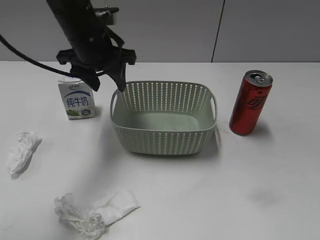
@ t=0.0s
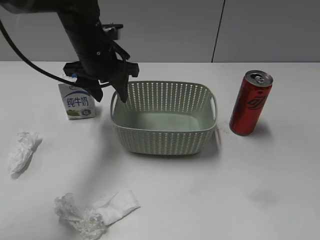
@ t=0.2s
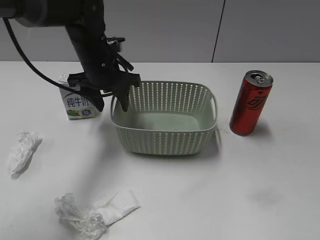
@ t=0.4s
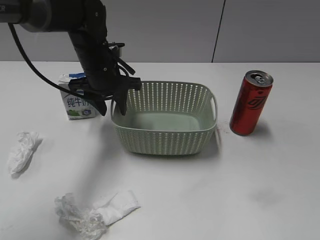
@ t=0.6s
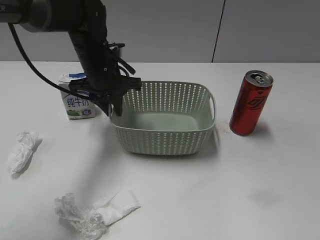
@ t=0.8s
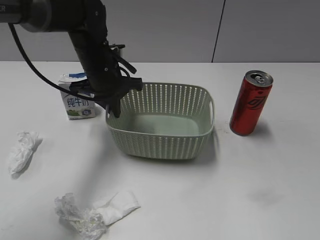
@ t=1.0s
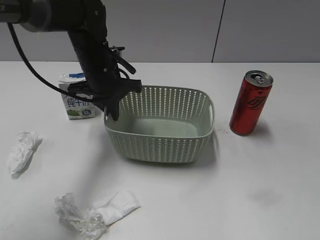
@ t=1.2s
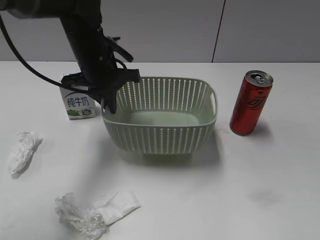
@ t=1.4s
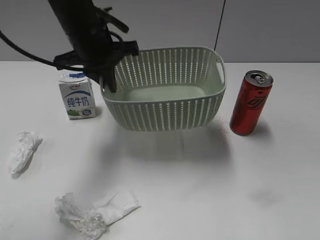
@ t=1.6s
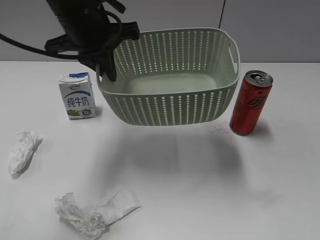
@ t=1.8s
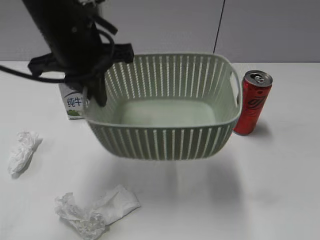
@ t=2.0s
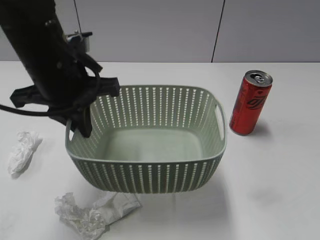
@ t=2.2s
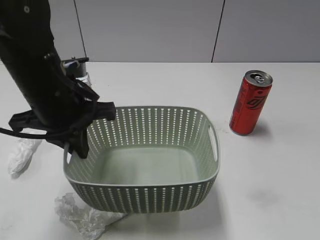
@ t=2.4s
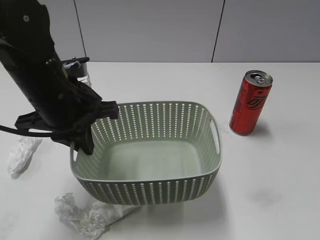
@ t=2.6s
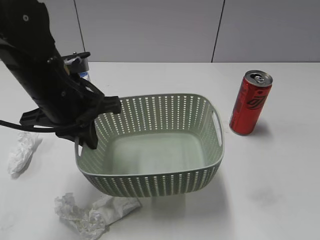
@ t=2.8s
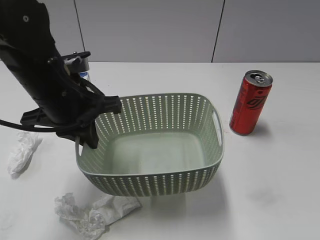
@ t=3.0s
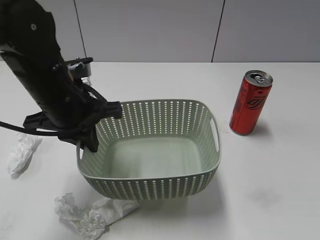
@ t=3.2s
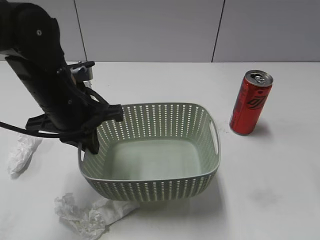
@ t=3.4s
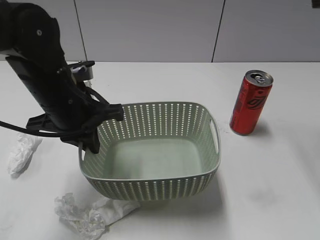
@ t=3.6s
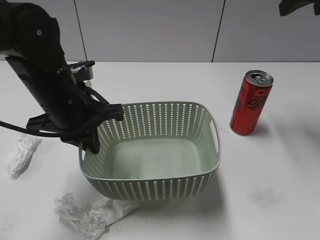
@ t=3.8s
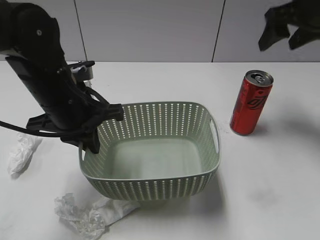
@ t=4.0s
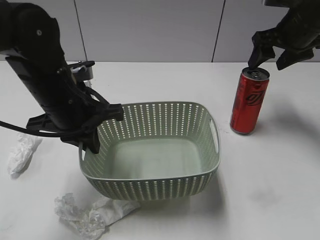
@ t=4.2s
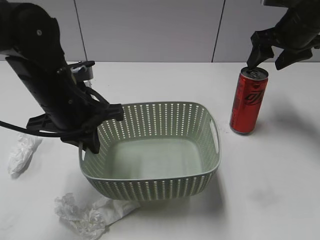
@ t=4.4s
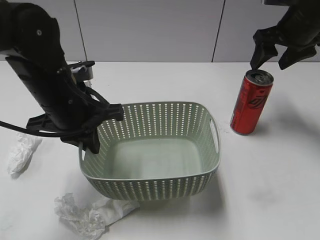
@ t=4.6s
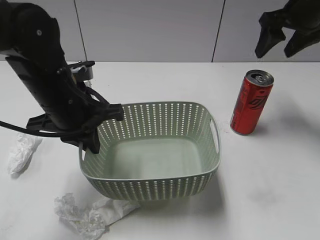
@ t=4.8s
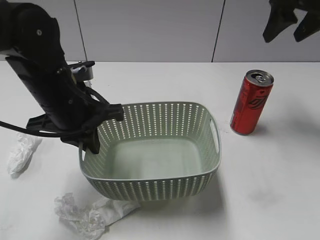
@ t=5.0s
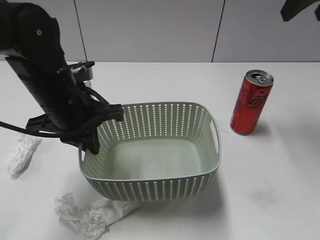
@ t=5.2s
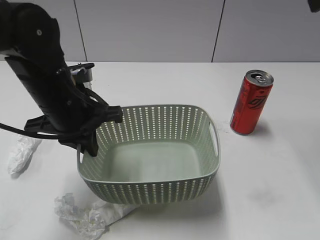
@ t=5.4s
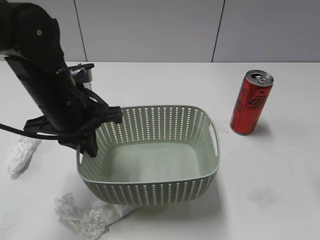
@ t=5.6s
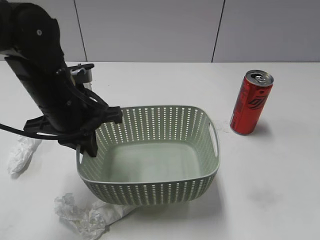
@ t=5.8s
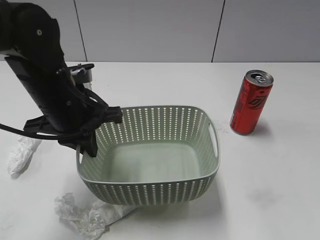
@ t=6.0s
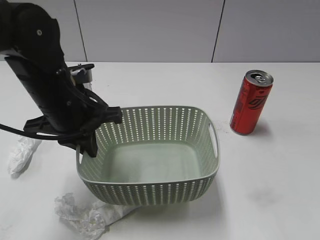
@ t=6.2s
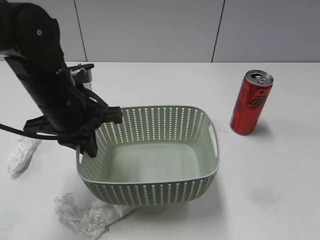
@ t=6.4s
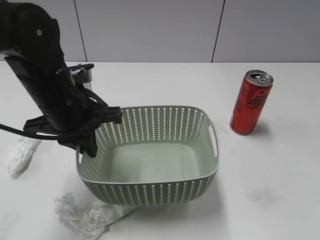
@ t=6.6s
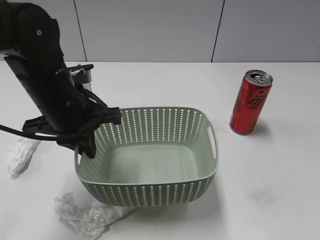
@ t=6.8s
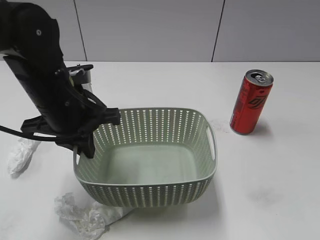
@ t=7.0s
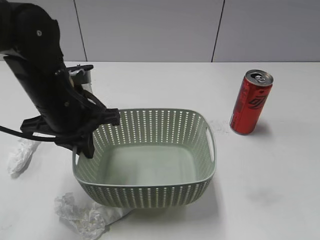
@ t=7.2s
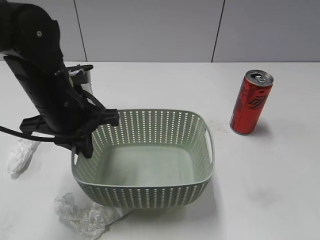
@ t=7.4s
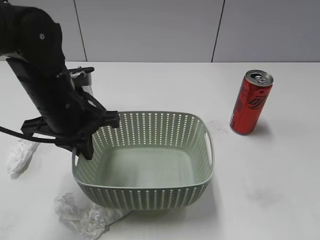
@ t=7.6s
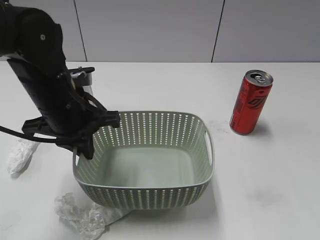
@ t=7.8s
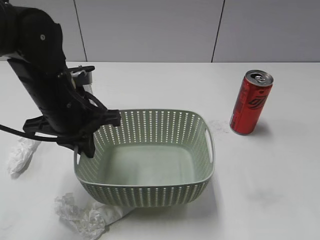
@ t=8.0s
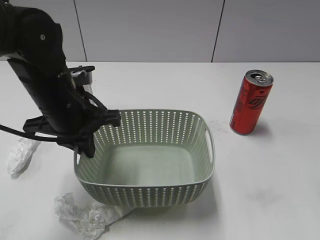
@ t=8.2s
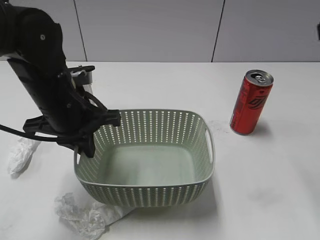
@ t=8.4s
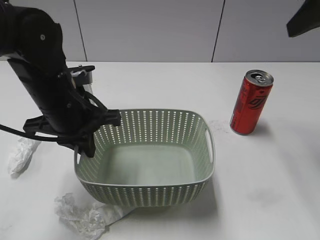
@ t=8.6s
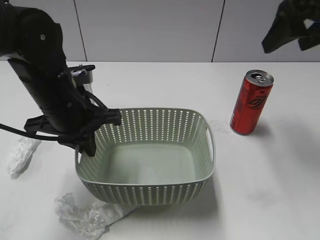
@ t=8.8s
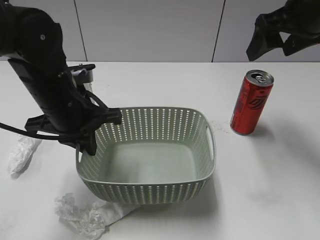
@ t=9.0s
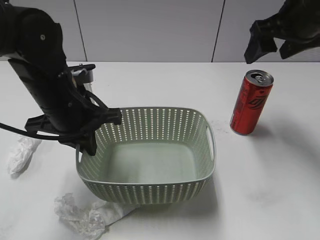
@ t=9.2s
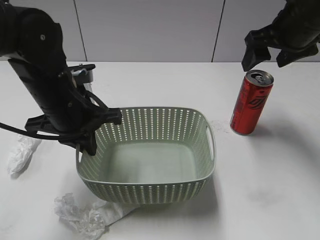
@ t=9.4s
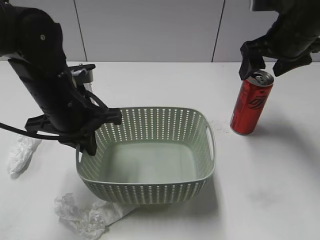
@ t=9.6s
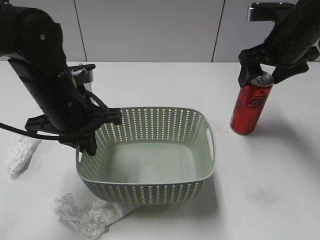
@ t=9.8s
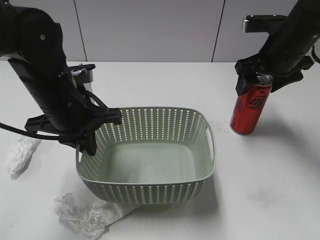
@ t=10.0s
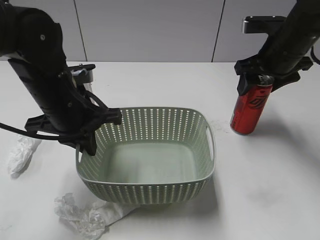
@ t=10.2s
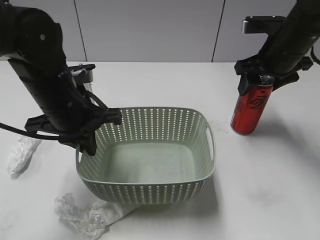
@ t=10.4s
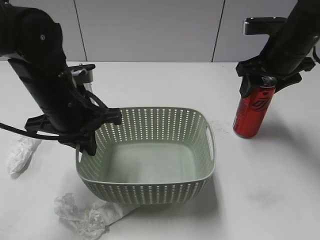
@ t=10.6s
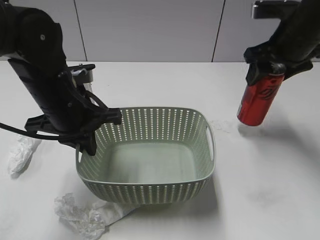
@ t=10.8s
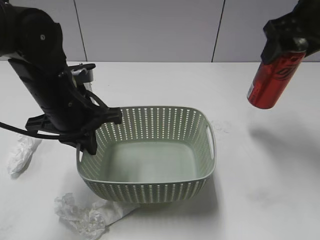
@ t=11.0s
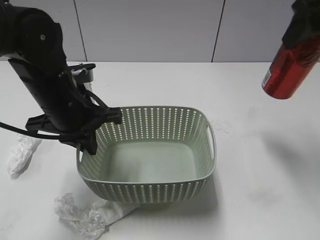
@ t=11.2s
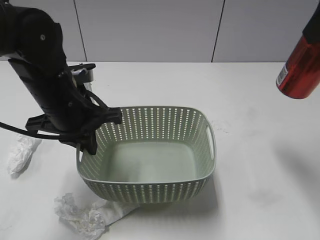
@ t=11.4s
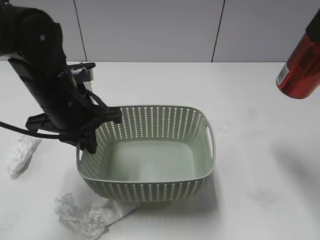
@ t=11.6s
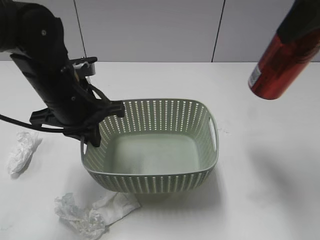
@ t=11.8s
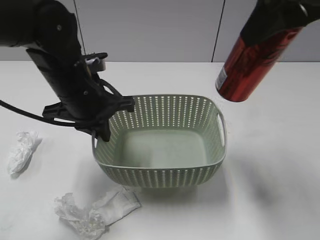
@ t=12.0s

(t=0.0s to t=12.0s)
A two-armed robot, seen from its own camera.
Step, t=0.0s - t=1.0s: Grasp the basket with left gripper.
Step, t=1.2s - t=3.4s: Lift the basket with left gripper.
Step, t=3.6s - t=10.4s: Grasp the cola can with right gripper.
t=0.0s - t=1.6s: The left gripper reaches about 5 cm downward, then returns, and closes.
t=1.6s - t=3.0s: The left gripper is displaced backward by some 10 cm, while the right gripper shifts some 5 cm upward.
t=3.0s - t=4.4s: The right gripper goes some 40 cm forward.
t=4.4s - t=6.0s: The right gripper moves backward, approximately 30 cm.
t=6.0s - t=7.6s: The right gripper is displaced backward by approximately 10 cm.
t=7.6s - t=9.0s: The right gripper travels forward by approximately 35 cm, and opens.
t=9.0s - t=10.4s: The right gripper shifts some 10 cm downward, and closes up.
t=10.4s - t=12.0s: The right gripper moves upward and backward, roughly 25 cm.

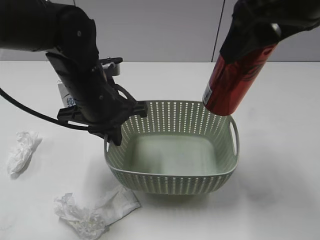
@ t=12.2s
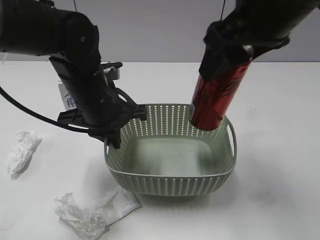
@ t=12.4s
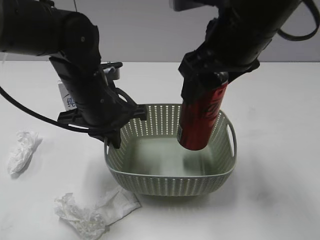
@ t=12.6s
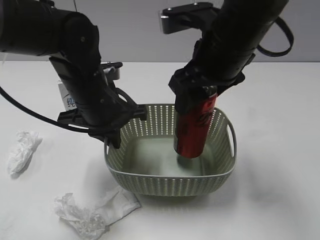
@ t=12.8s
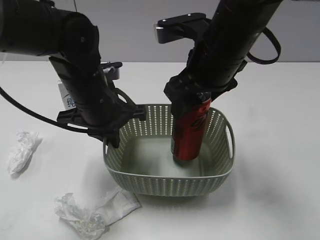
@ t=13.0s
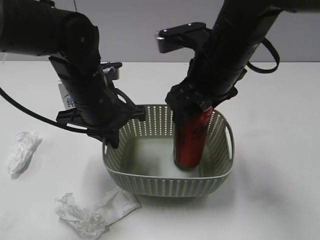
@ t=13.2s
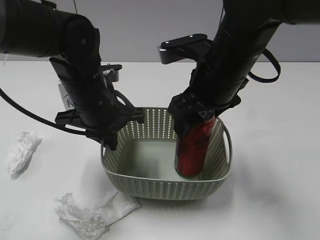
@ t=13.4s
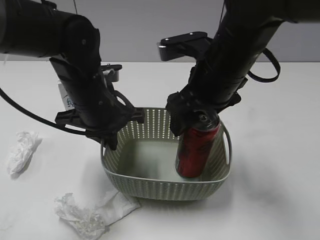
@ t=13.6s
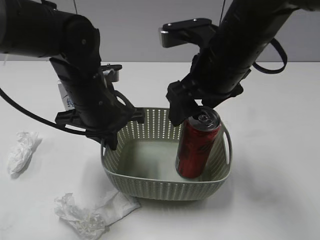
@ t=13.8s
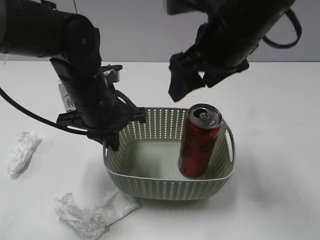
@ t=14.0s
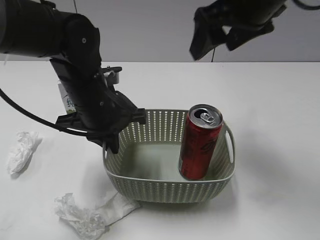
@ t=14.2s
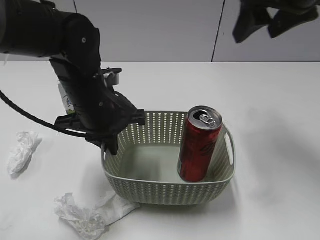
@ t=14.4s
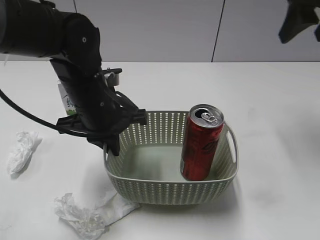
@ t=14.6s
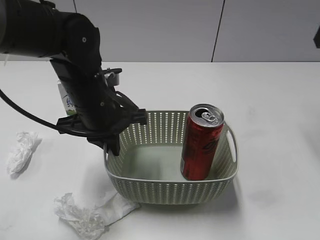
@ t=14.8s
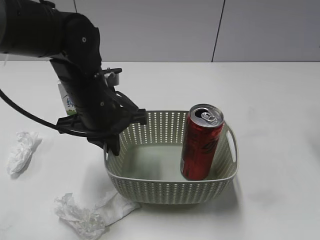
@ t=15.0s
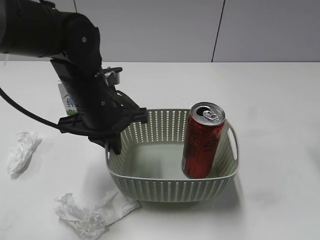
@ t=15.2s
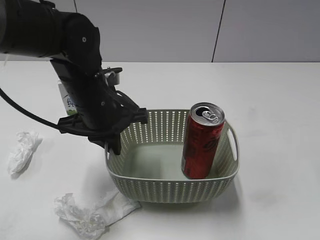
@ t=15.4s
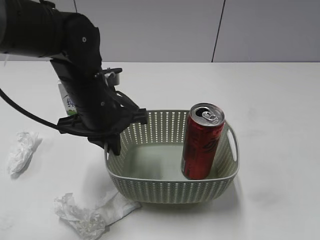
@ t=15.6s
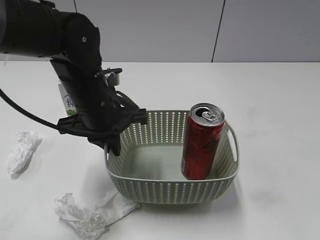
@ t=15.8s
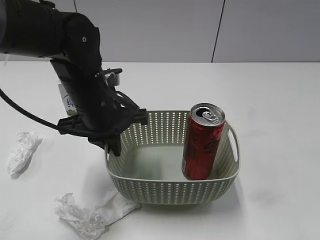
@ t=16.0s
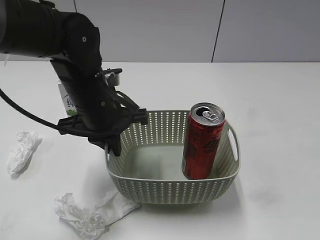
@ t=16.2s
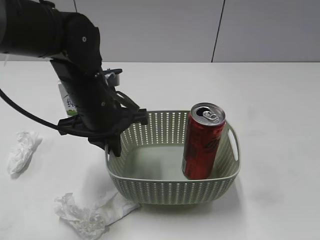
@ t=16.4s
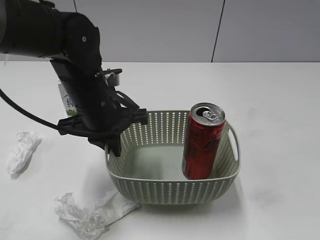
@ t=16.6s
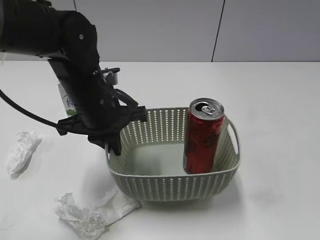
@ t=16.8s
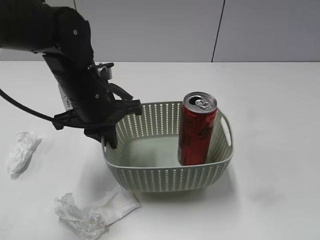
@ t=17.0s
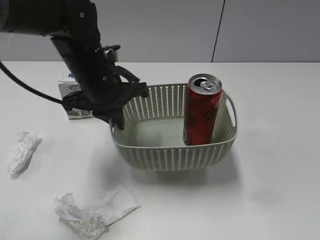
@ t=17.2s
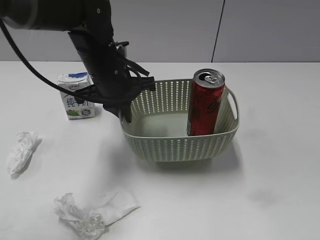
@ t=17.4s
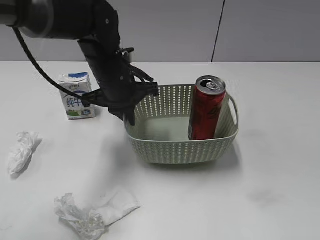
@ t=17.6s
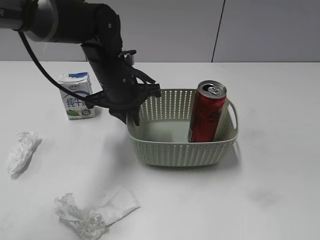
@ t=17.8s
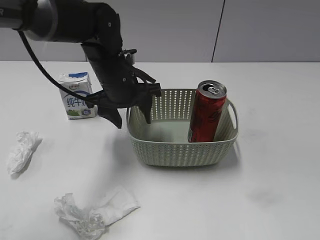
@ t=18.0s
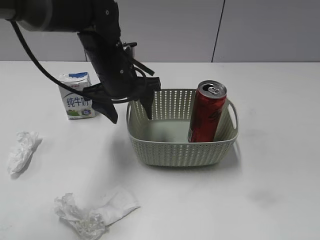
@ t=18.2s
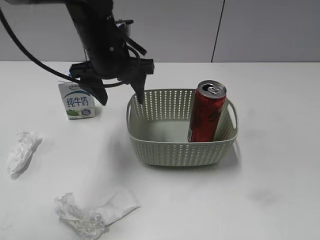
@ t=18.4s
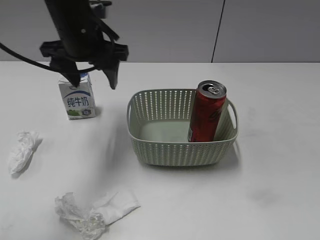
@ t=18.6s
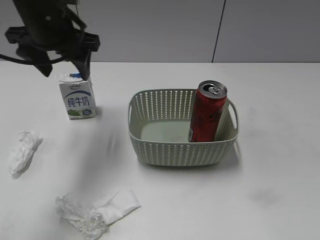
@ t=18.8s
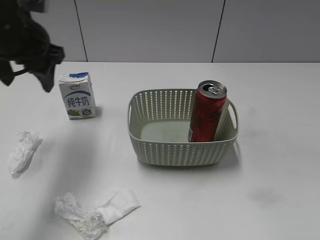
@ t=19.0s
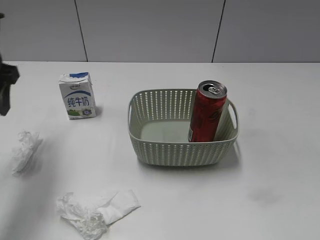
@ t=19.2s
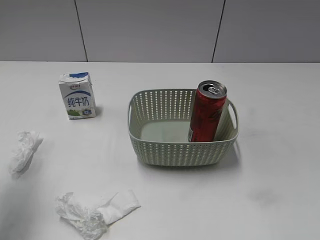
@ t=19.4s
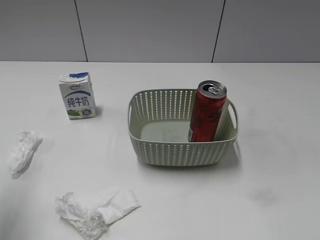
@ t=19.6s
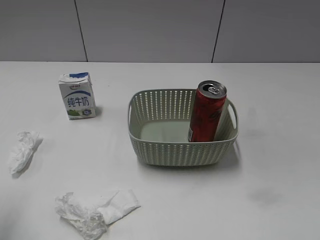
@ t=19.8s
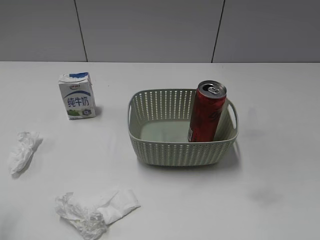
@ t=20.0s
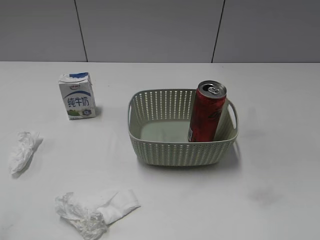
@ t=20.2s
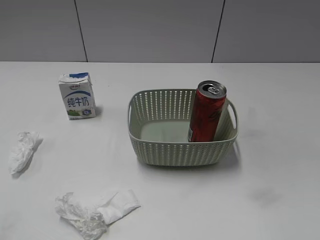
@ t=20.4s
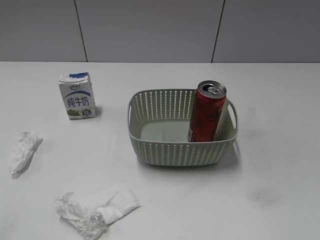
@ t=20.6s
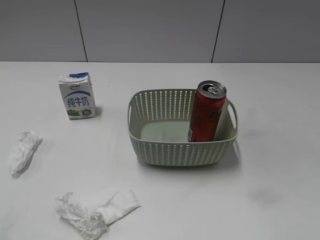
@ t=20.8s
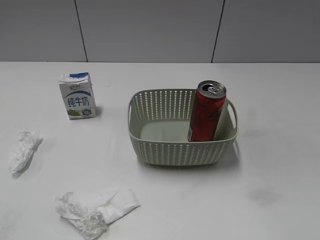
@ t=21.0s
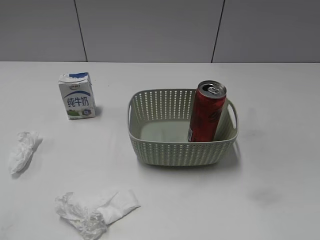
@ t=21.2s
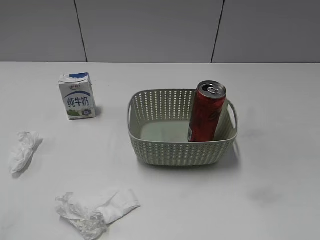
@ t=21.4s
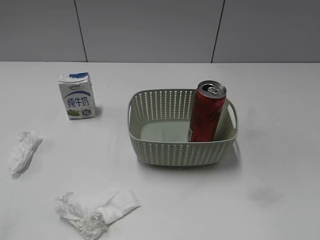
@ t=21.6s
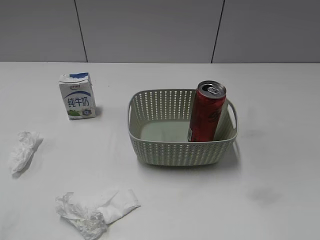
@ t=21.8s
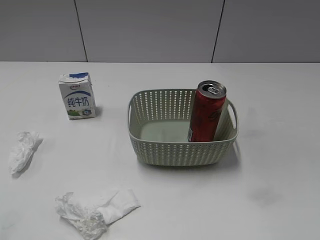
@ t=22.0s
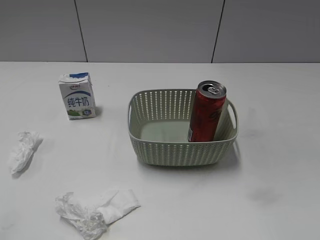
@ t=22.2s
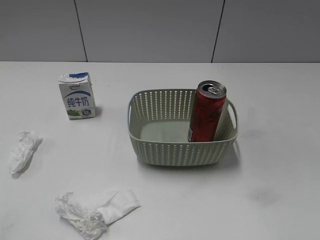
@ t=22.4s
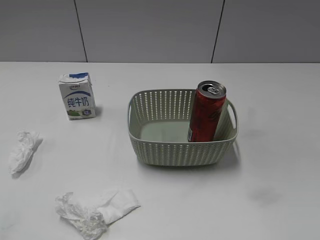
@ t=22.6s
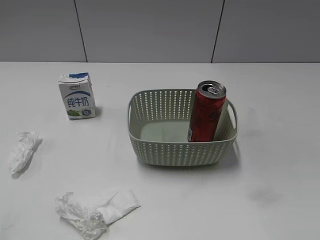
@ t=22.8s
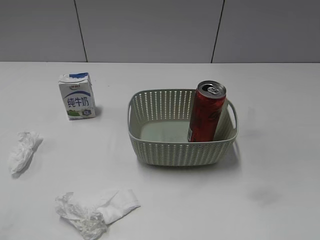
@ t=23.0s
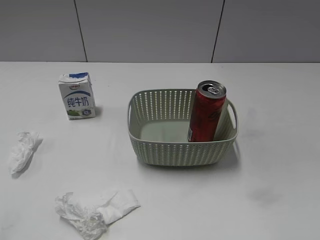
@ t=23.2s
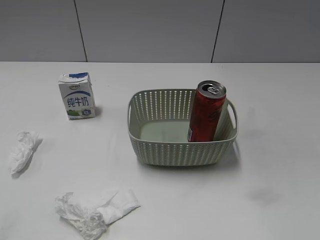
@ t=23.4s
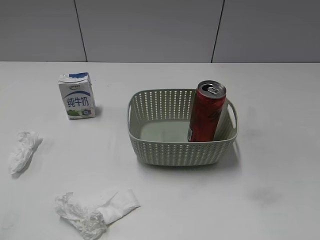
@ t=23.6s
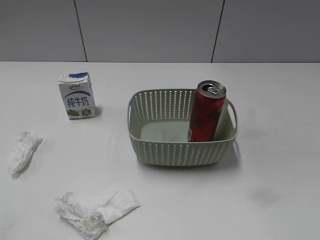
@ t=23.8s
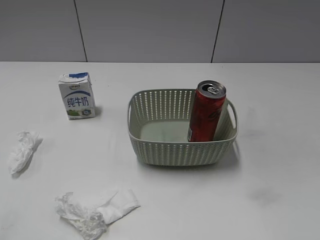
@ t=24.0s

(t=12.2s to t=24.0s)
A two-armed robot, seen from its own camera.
Step, t=13.8s - t=17.8s: Place the basket on the table with left gripper.
t=12.2s - t=13.6s: The right gripper shifts approximately 15 cm downward and to the left, and opens up.
t=13.6s - t=15.2s: The right gripper is displaced to the right and upward by approximately 25 cm.
t=15.2s - t=16.6s: The right gripper shifts some 30 cm backward.
t=16.6s - t=18.2s: The left gripper shifts approximately 5 cm forward, and opens up. The right gripper closes its fingers.
t=18.2s - t=19.6s: The left gripper travels to the left and backward by roughly 25 cm.
t=19.6s - t=21.0s: The left gripper travels backward by approximately 20 cm.
t=22.6s - t=24.0s: Neither gripper changes place.
